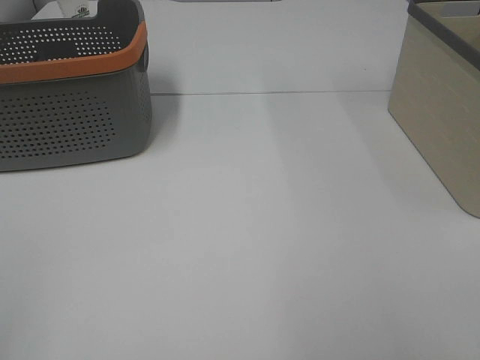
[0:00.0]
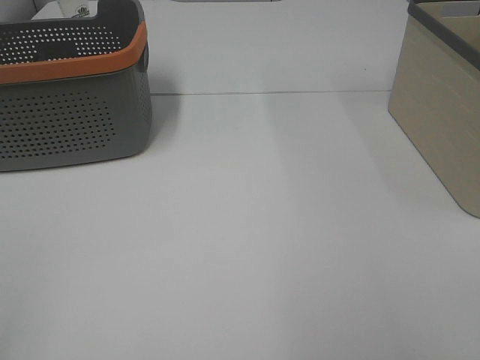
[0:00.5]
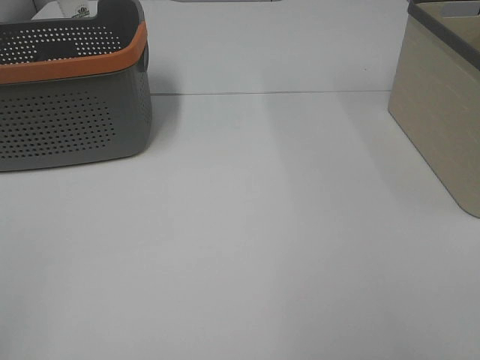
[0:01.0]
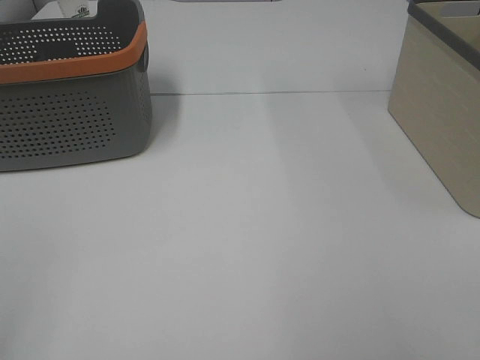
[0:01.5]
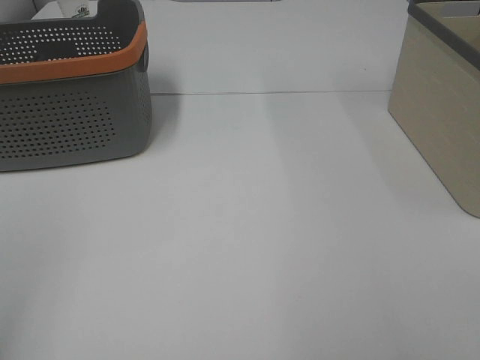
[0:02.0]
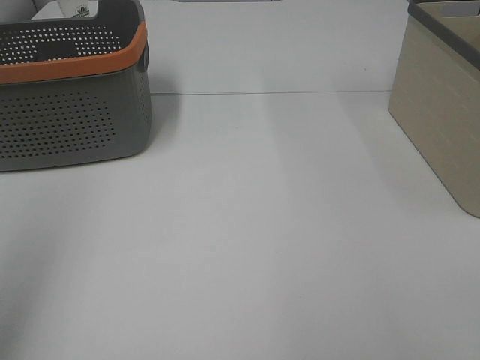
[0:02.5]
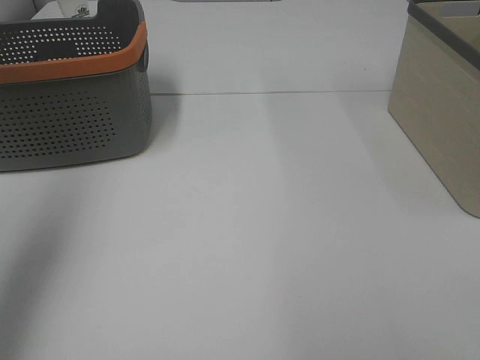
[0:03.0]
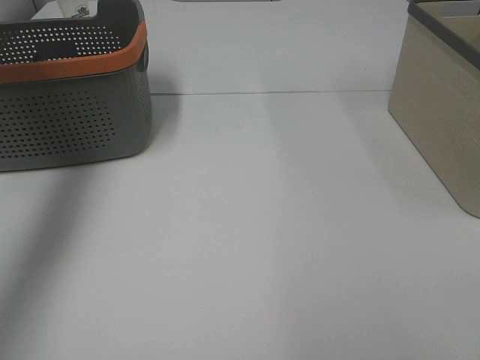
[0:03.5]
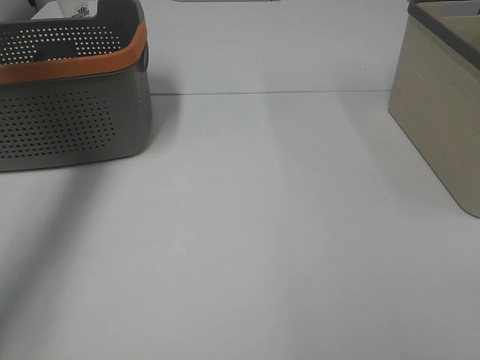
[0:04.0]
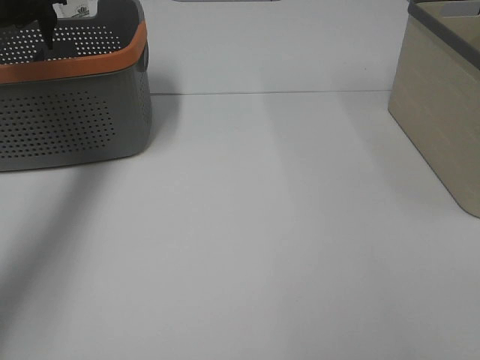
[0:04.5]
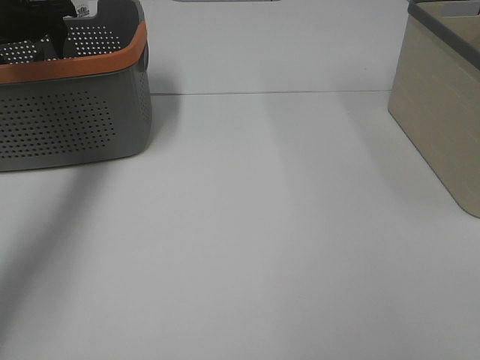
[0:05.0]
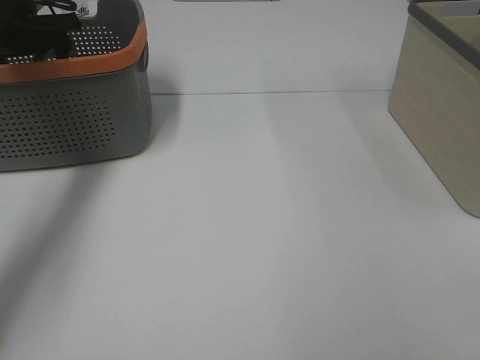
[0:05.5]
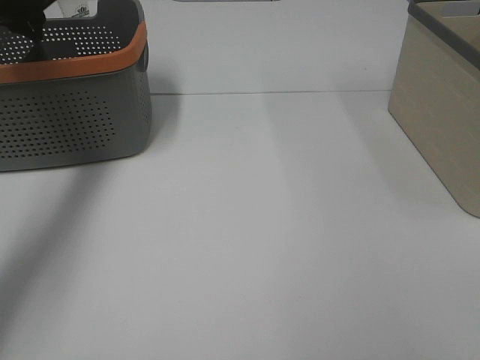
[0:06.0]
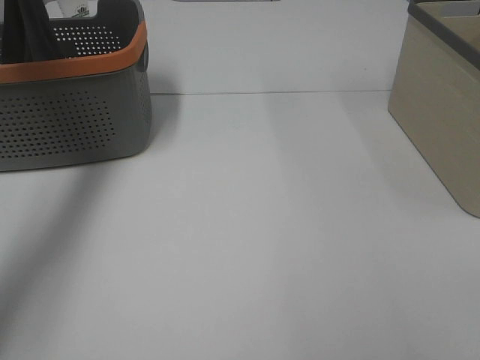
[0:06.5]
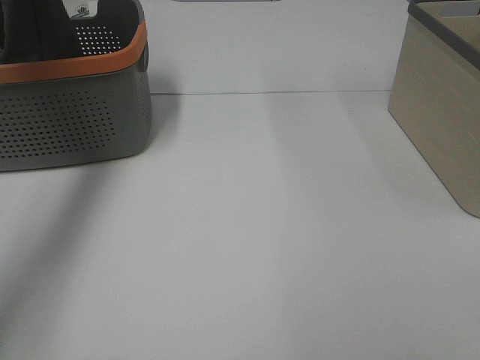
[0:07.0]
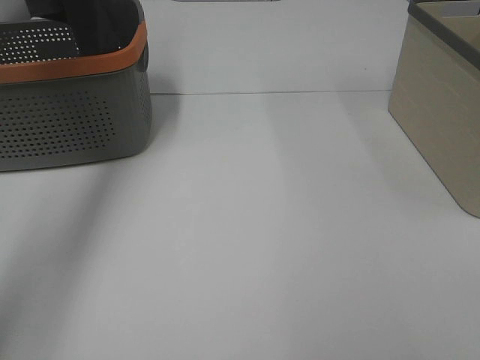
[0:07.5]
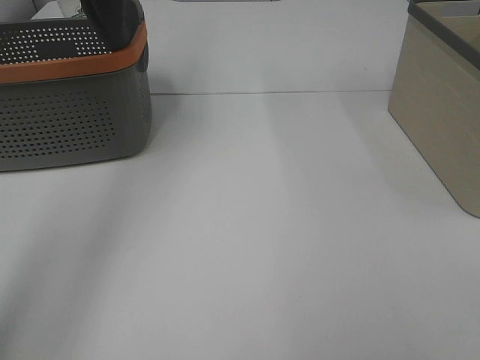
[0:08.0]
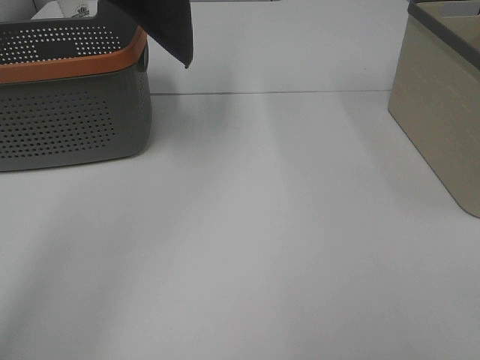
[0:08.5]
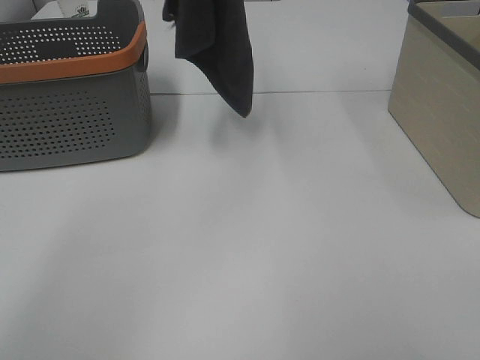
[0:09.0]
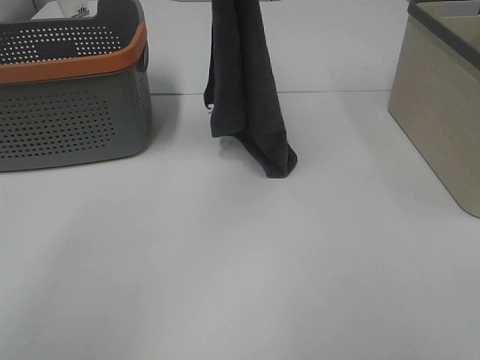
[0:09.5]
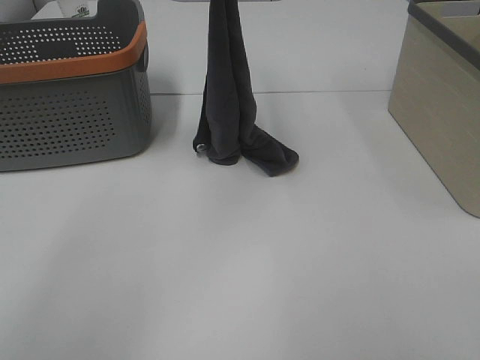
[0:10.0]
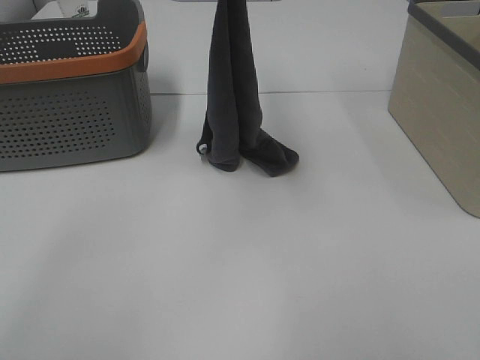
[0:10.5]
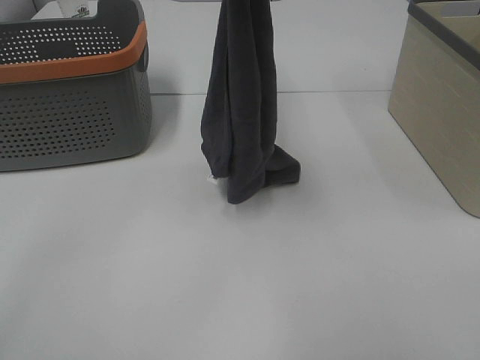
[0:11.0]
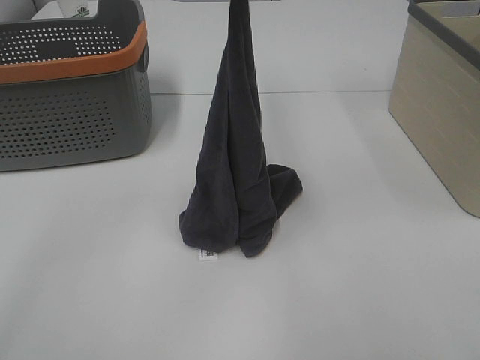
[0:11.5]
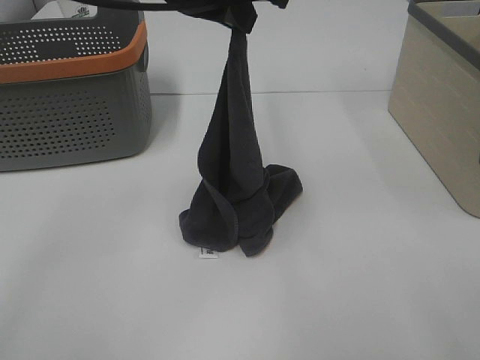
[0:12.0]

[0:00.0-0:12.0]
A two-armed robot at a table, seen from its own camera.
Task of the whole recording: Remove the towel and place it.
0:02.0 to 0:04.0: The left gripper moves forward, some 40 cm.
0:04.0 to 0:06.0: The left gripper shifts approximately 10 cm forward and downward, and closes.
0:06.0 to 0:08.0: The left gripper travels upward by some 30 cm.
0:08.0 to 0:10.0: The left gripper goes approximately 25 cm downward and to the right.
0:10.0 to 0:12.0: The right gripper travels forward by about 10 cm. The left gripper is displaced backward by some 10 cm, and goes upward and returns, some 5 cm each way.

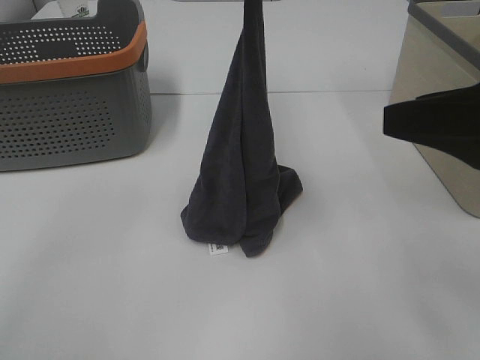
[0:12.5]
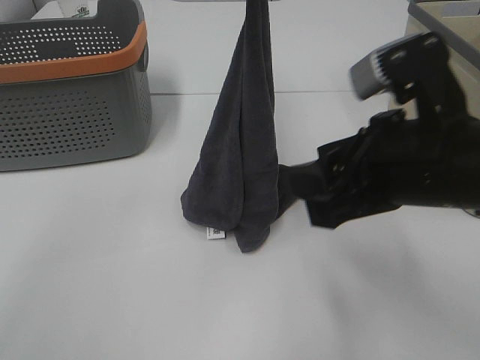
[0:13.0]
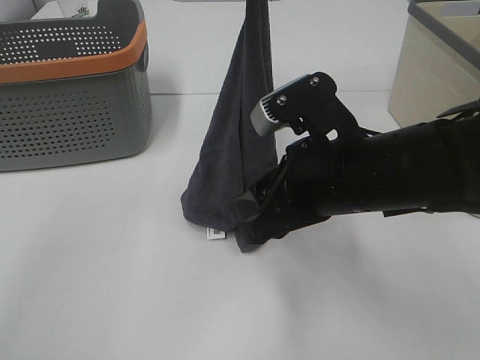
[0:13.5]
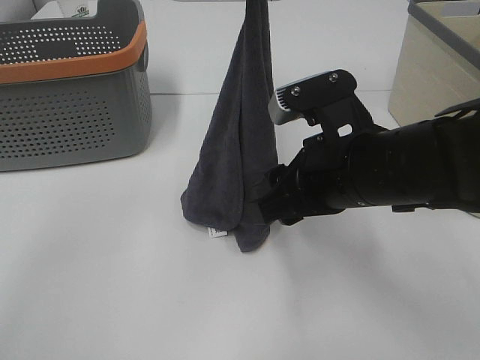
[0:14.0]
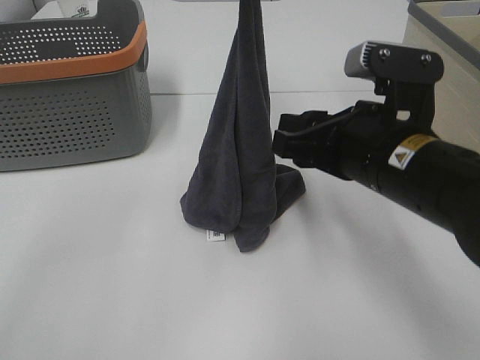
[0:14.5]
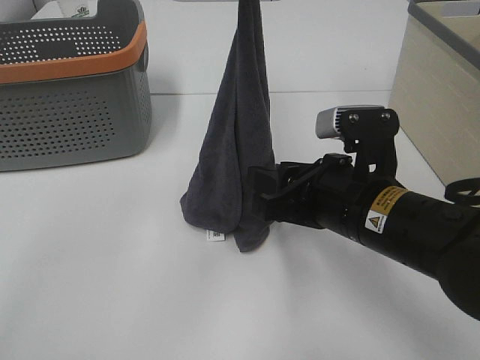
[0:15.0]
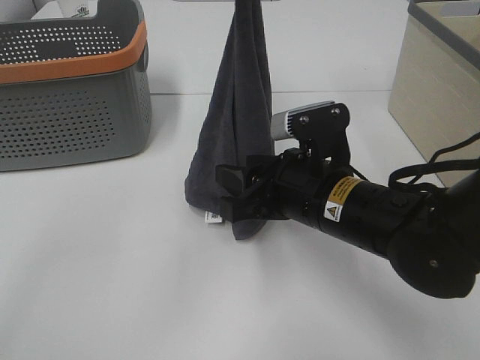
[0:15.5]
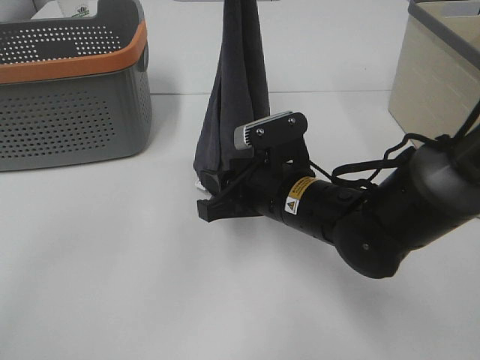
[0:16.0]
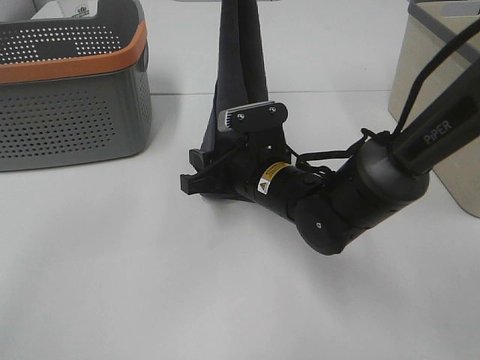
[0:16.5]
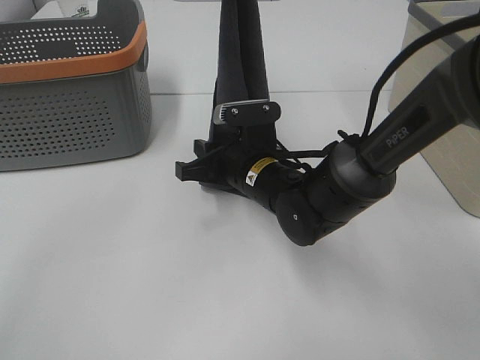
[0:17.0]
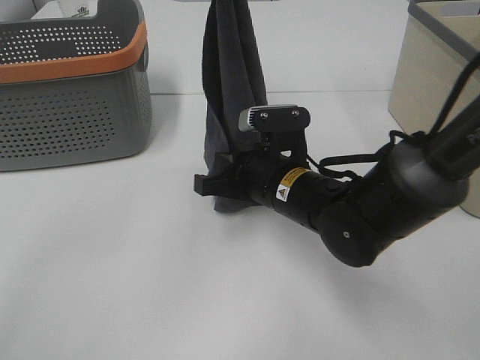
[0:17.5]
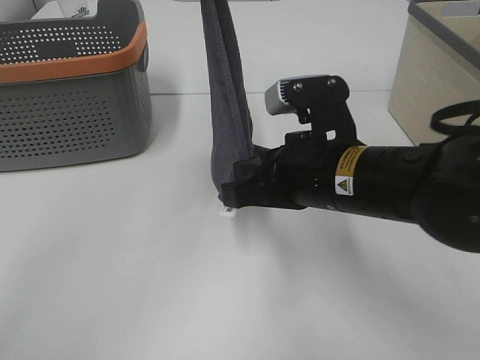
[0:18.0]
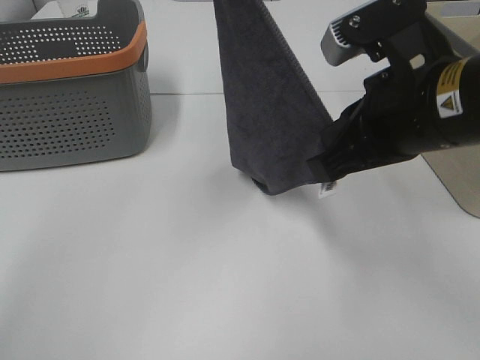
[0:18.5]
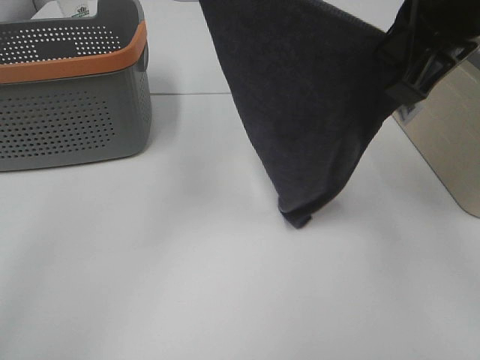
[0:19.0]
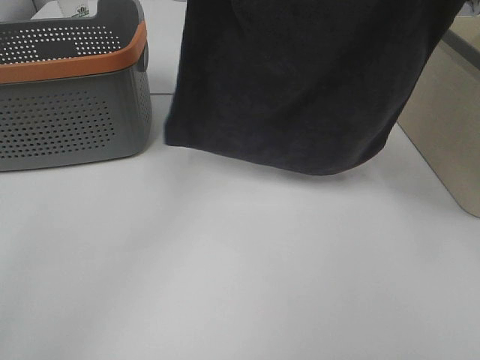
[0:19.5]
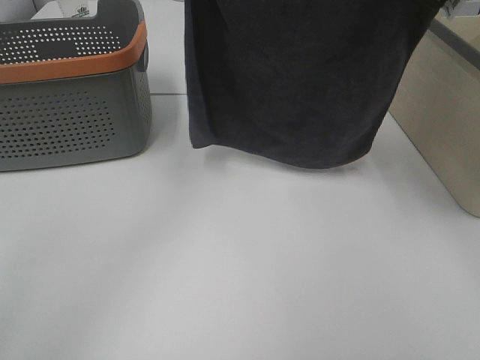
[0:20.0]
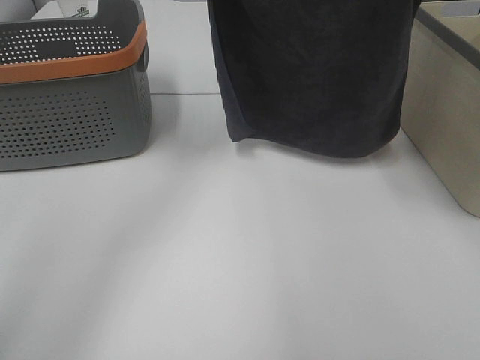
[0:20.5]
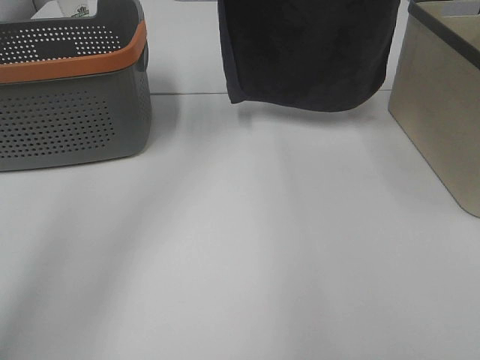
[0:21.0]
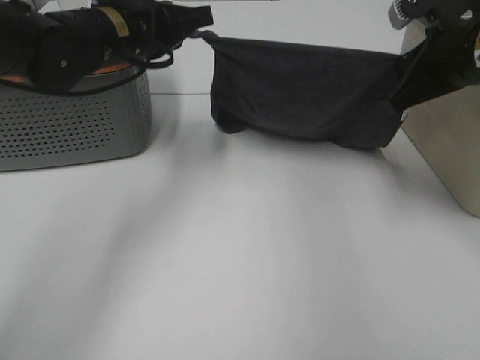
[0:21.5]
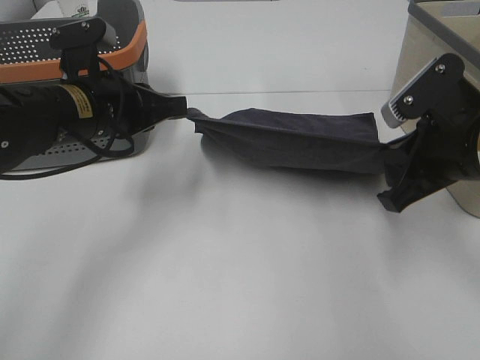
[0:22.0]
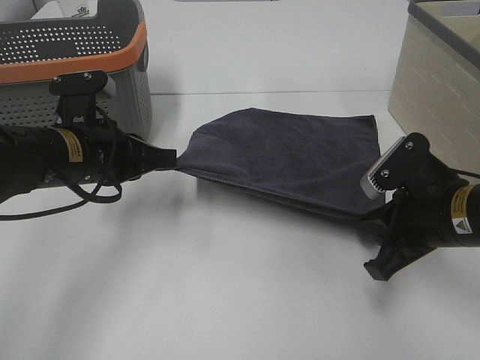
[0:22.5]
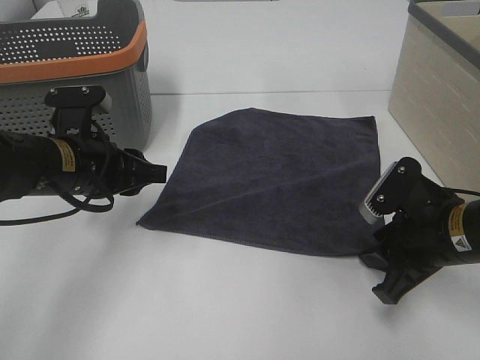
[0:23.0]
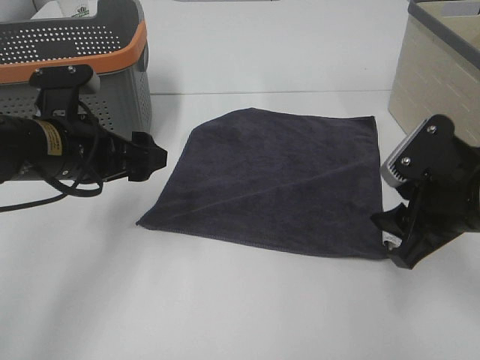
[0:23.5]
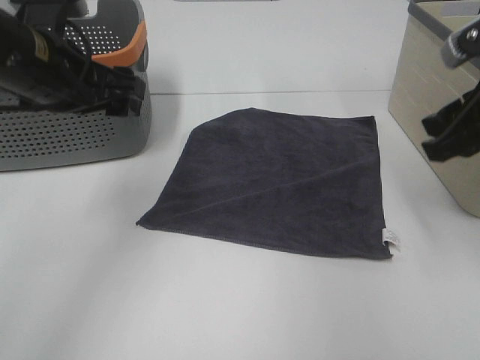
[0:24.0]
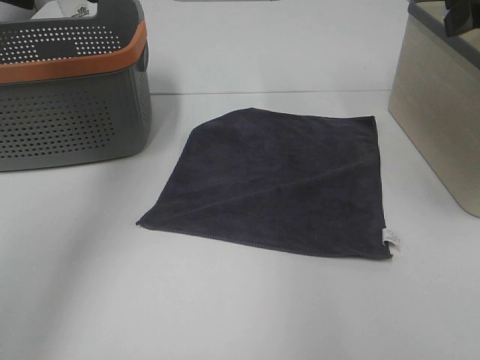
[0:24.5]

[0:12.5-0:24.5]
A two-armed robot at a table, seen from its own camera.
Task of the whole recording: Remove the towel and place it.
Step, 0:12.5 to 0:15.5: Right hand: grab a corner of the grey towel and straighten it.
Step, 0:16.0 to 0:18.0: Left hand: spread the grey towel flat on the table.
Step, 0:16.0 to 0:18.0: Right hand: spread the grey towel flat on the table.
0:12.5 to 0:14.5: The right gripper is displaced to the left, downward and forward by about 15 cm.
0:14.5 to 0:16.5: The right gripper travels downward, to the left and forward by some 15 cm.
0:16.5 to 0:18.5: The left gripper changes place by roughly 5 cm. Meanwhile the right gripper travels upward, to the right and backward by roughly 20 cm, and closes its fingers.
0:18.5 to 0:20.5: The left gripper travels downward by some 10 cm; the right gripper moves forward, upward and to the right, roughly 20 cm.
0:20.5 to 0:22.5: The grippers both shift downward and backward by approximately 25 cm.
0:22.5 to 0:24.5: The two grippers go about 20 cm upward. The right gripper opens up. The left gripper opens its fingers.

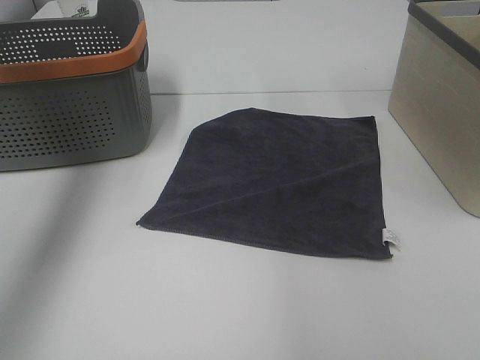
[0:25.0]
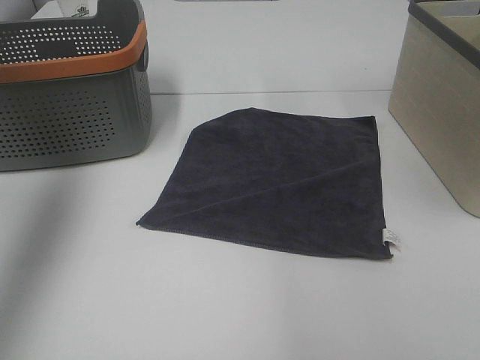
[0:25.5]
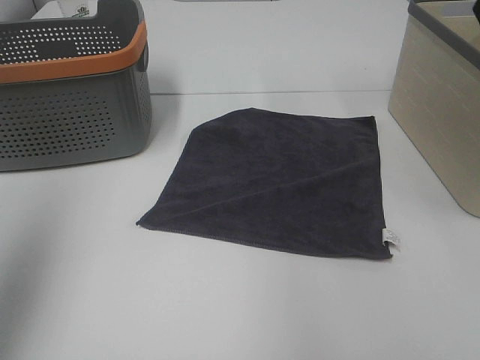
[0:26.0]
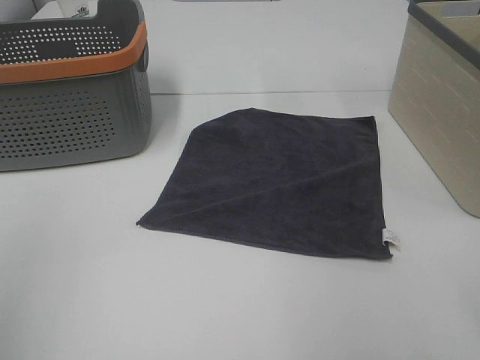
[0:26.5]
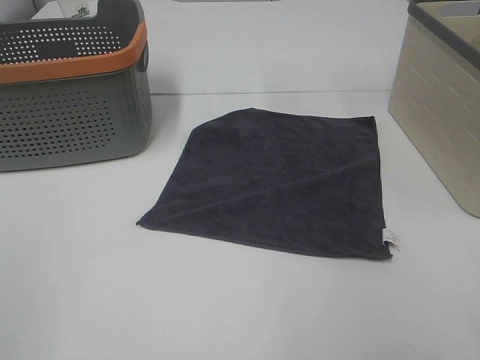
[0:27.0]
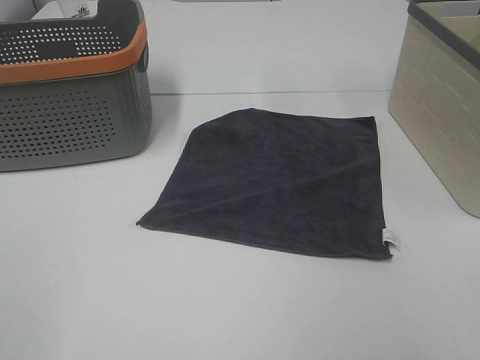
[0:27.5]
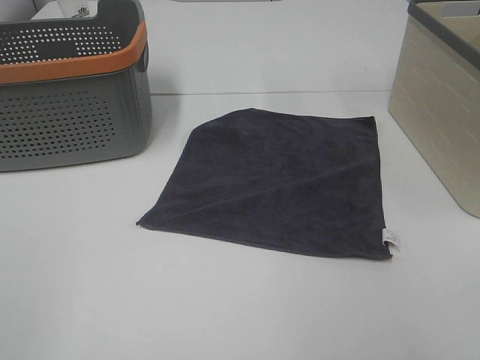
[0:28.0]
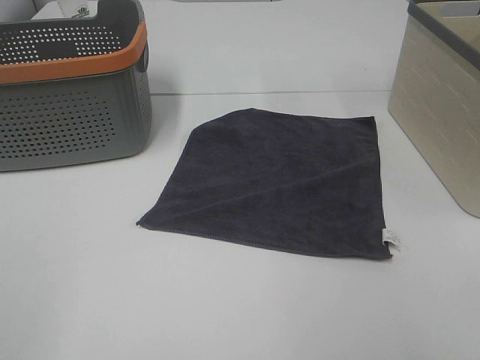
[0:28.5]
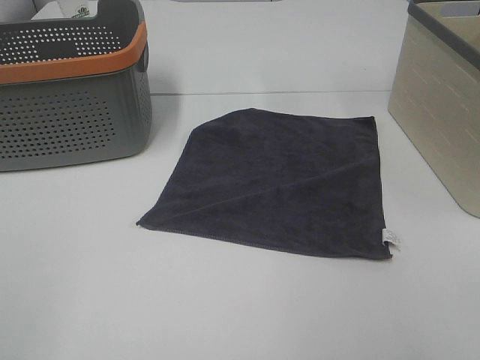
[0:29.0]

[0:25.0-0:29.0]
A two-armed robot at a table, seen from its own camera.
Task of the whole recording: Remove the towel and place it.
0:25.0 to 0:27.0: The left gripper travels backward by some 35 cm.
